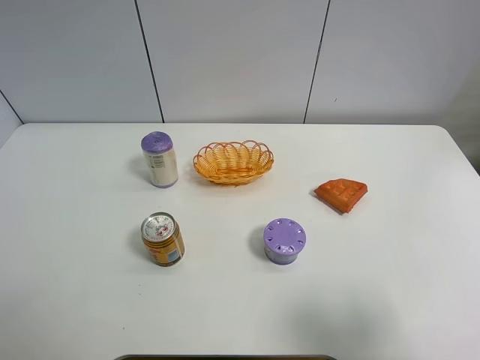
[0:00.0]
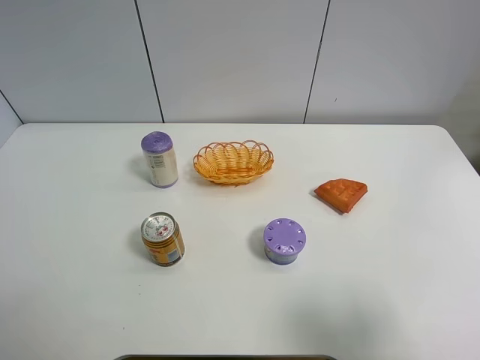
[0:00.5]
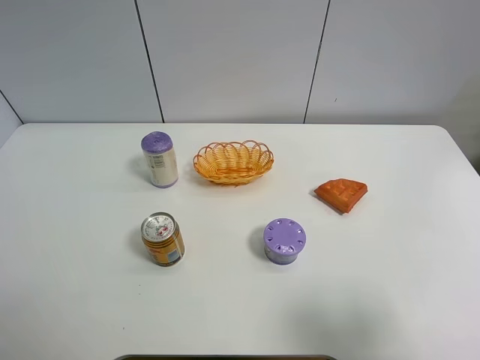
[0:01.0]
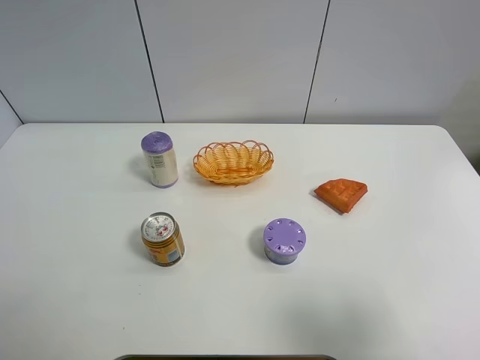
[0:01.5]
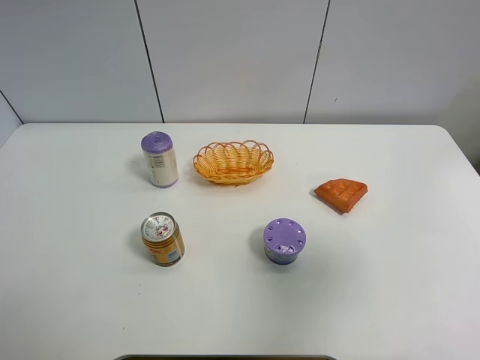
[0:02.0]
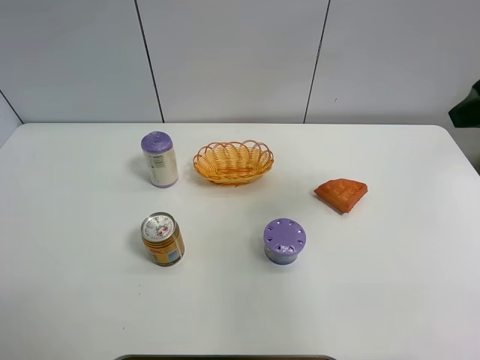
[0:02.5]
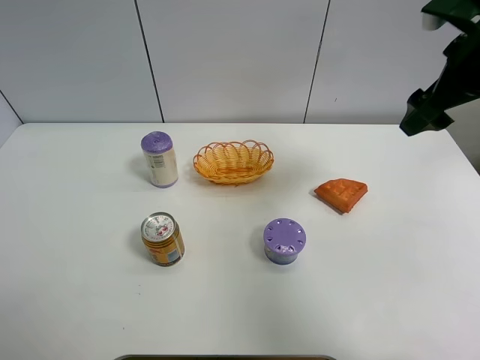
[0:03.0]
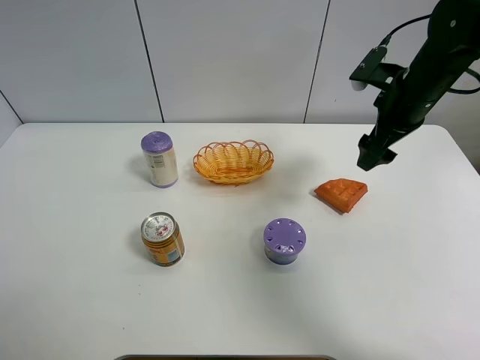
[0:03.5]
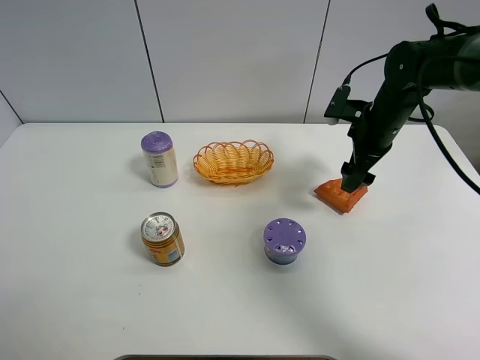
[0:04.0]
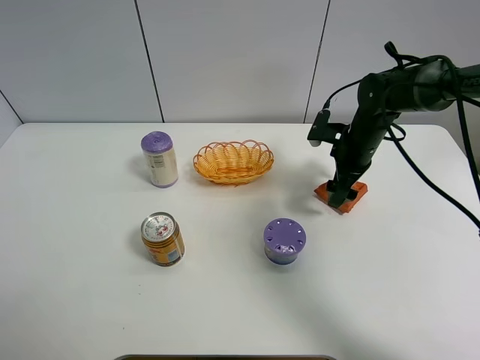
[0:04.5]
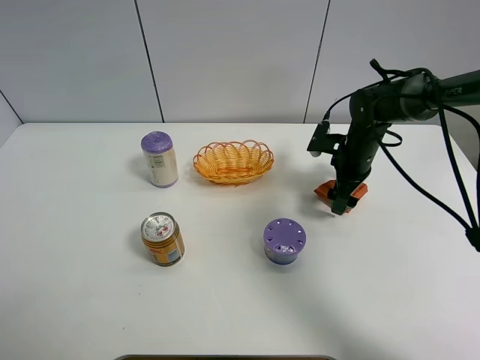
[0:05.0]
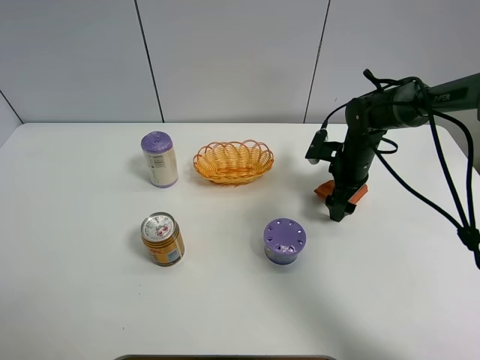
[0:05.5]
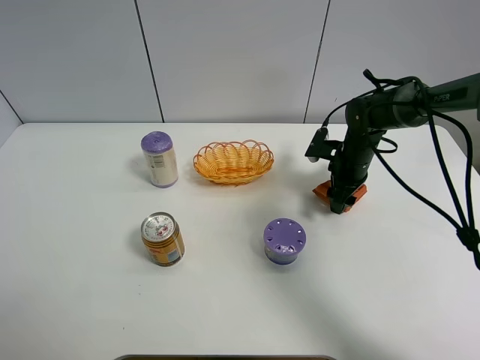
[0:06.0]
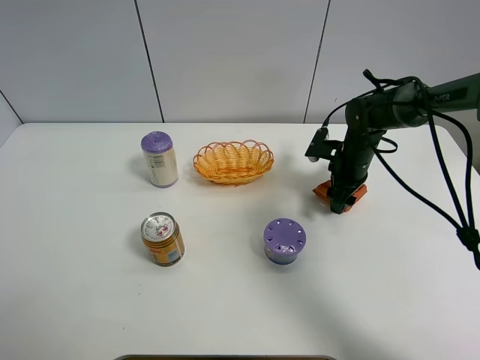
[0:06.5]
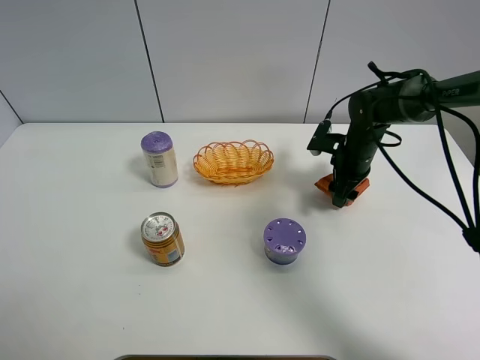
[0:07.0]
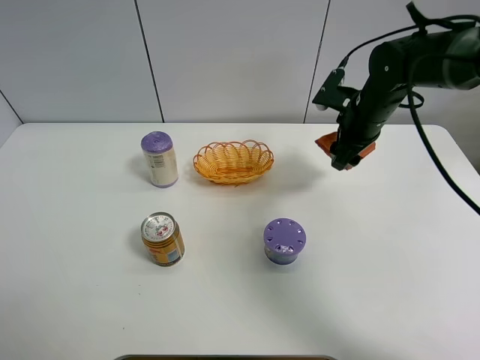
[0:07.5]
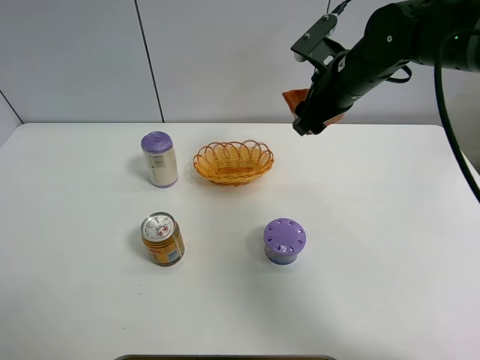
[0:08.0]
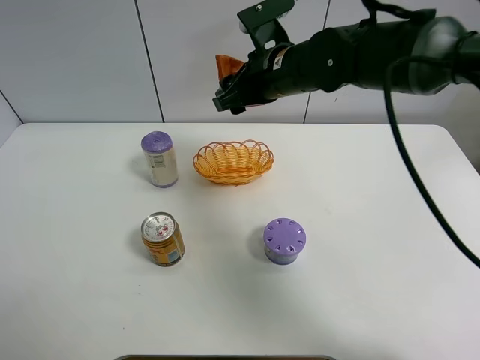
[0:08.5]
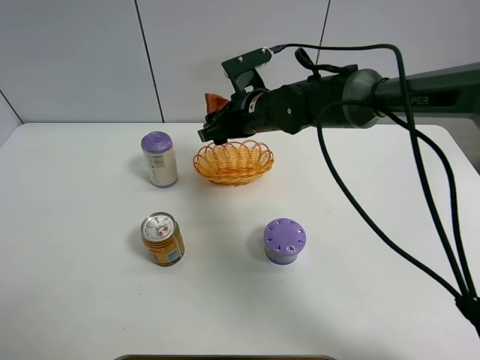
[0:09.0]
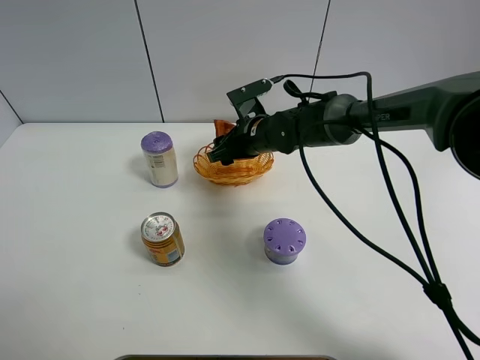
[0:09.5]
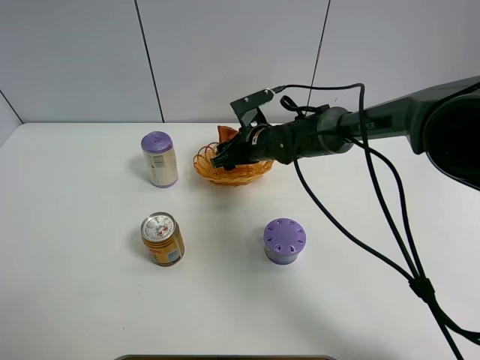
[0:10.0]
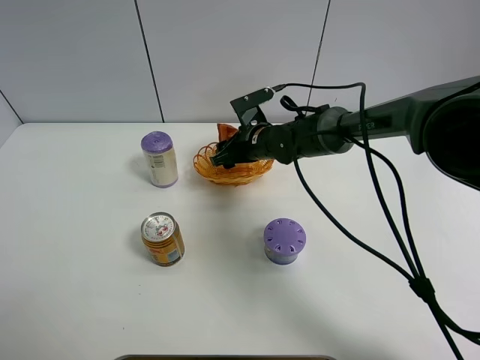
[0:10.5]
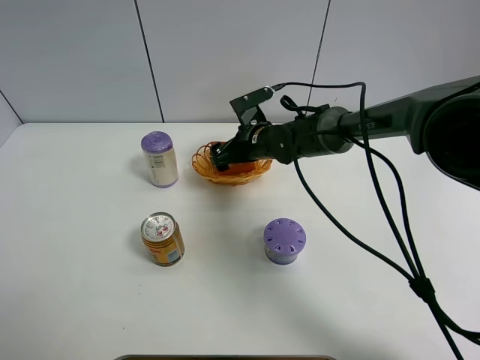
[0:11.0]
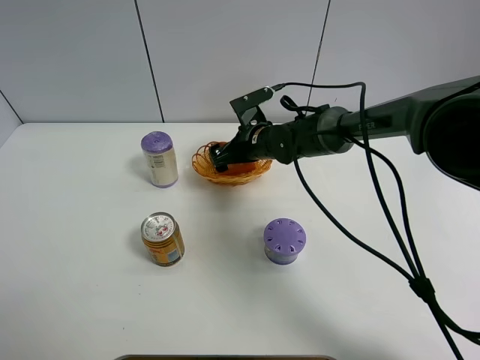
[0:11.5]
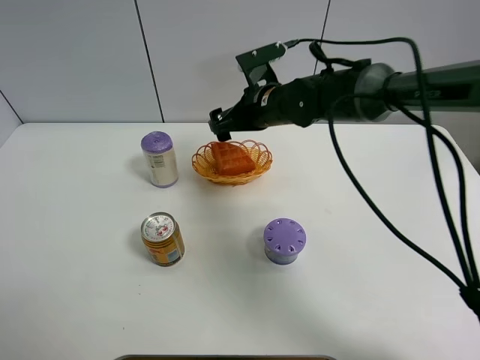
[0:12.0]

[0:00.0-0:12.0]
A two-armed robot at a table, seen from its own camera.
Task of the whole recording: Put the bakery in the basket.
Step, 0:00.0 to 0:05.5: Grasp the bread with right gripper.
0:00.0 to 0:02.0: The right gripper goes approximately 10 cm upward and forward.
0:02.0 to 0:04.0: The right gripper shifts some 35 cm forward and downward.
0:04.0 to 0:06.0: The right gripper moves downward, approximately 10 cm, and closes its fingers.
0:06.0 to 0:08.0: The right gripper goes some 20 cm upward and to the left.
0:08.0 to 0:10.0: The right gripper is displaced downward and to the left by some 20 cm.
0:10.0 to 0:12.0: The right gripper is displaced upward by some 10 cm, and opens.

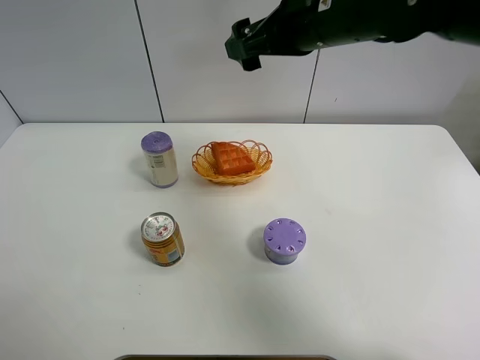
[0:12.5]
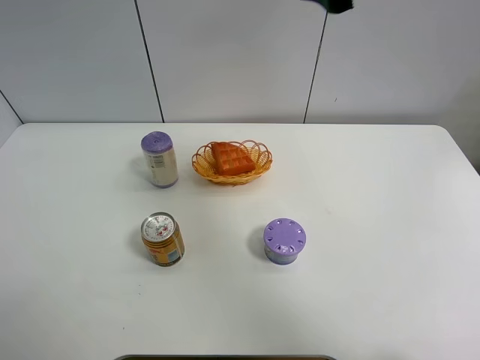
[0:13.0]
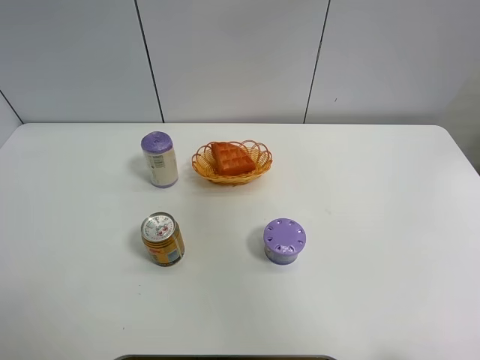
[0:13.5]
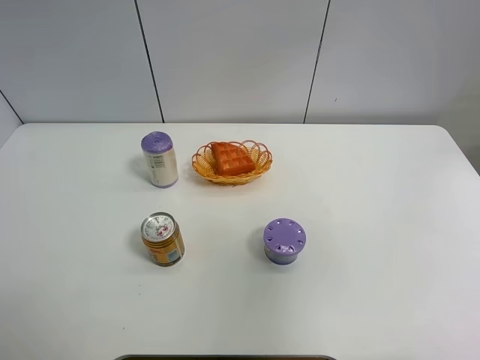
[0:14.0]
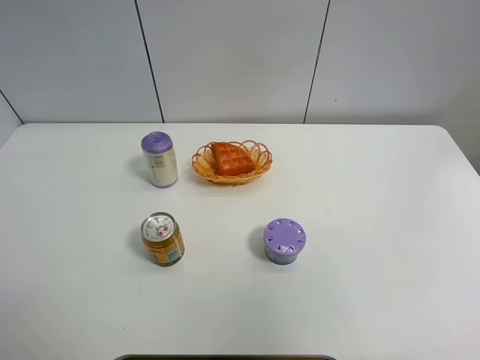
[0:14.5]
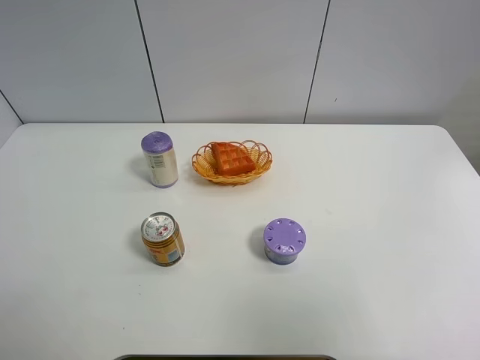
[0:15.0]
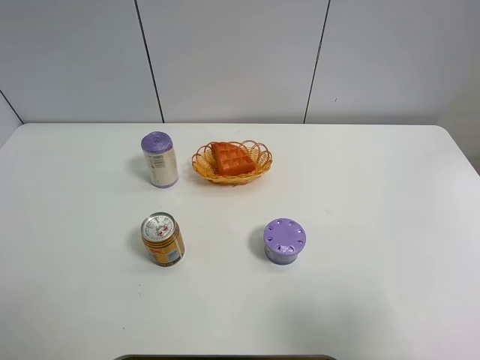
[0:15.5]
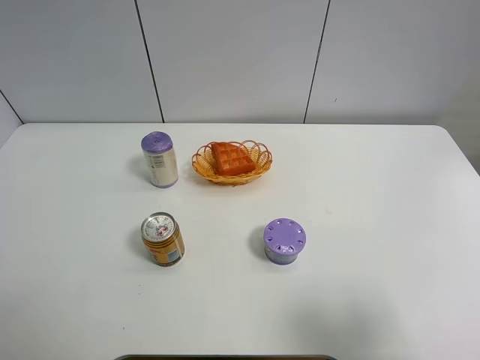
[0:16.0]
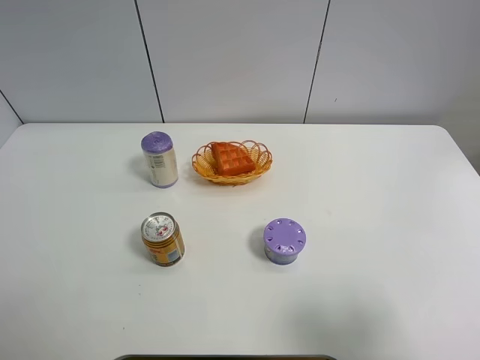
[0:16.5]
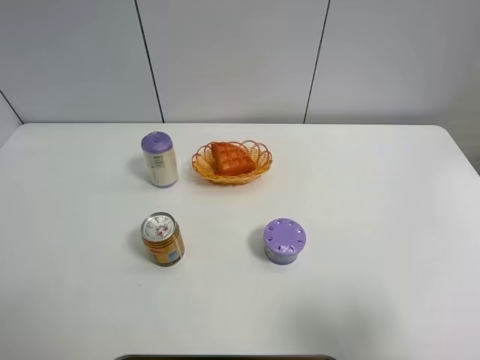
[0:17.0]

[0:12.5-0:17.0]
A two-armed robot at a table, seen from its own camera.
Task of the whole recording: Put the bakery in the basket.
0:12.5 to 0:14.5: The right gripper shifts about 40 cm backward and to the right.
0:14.5 to 0:17.0: The right gripper goes roughly 20 cm downward.
